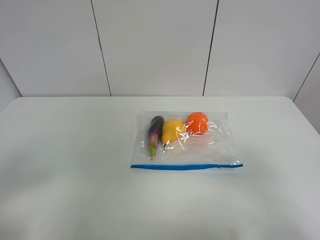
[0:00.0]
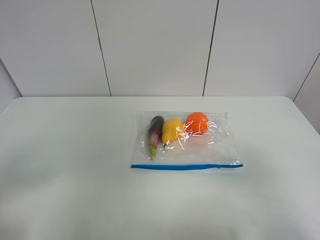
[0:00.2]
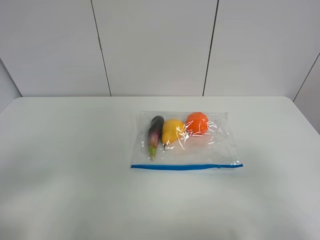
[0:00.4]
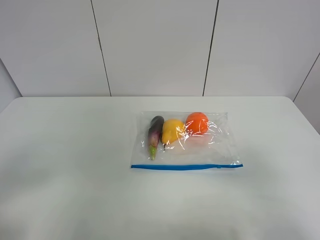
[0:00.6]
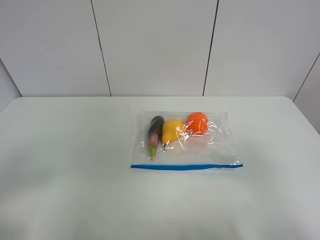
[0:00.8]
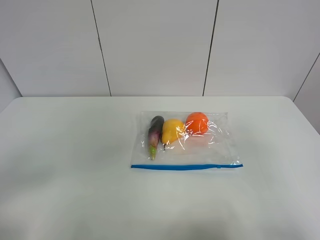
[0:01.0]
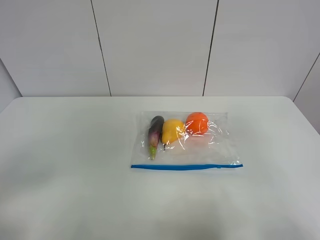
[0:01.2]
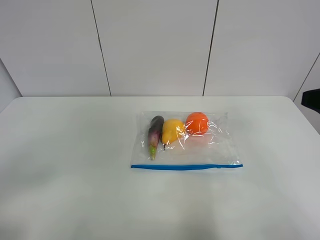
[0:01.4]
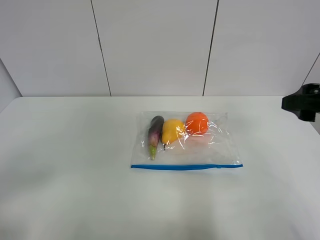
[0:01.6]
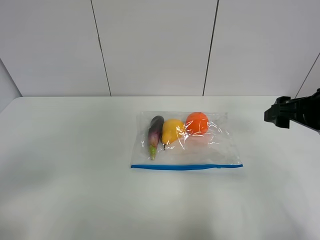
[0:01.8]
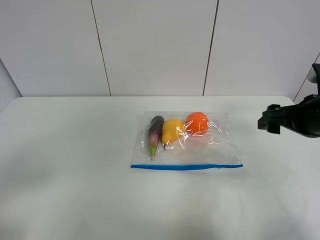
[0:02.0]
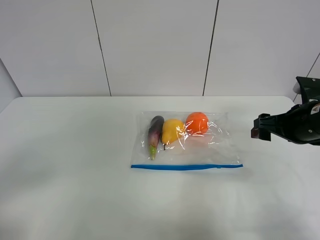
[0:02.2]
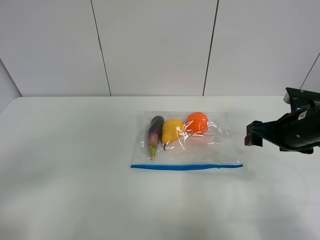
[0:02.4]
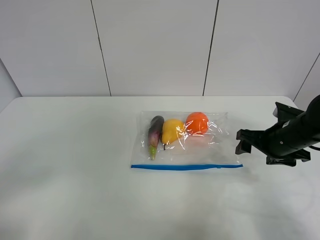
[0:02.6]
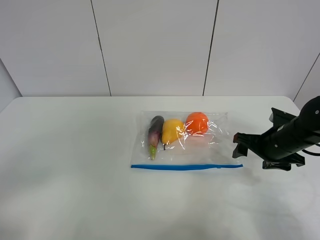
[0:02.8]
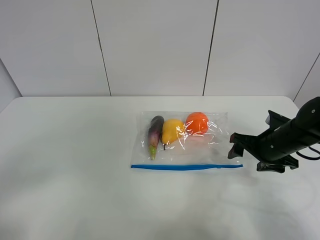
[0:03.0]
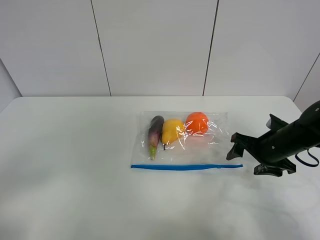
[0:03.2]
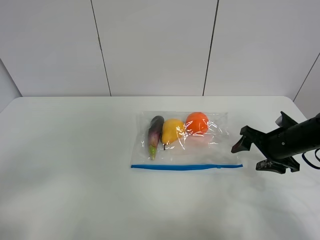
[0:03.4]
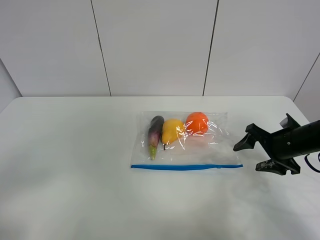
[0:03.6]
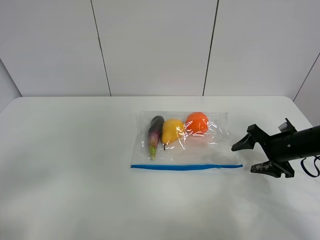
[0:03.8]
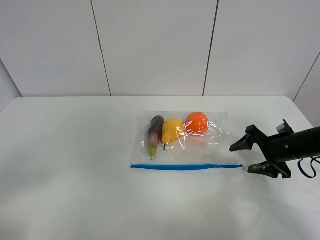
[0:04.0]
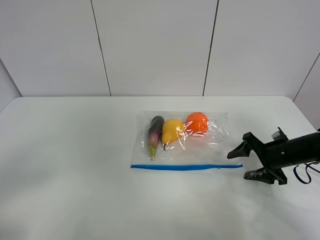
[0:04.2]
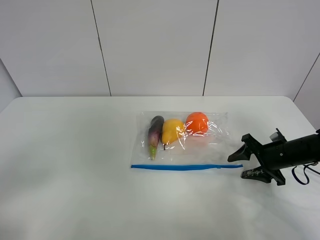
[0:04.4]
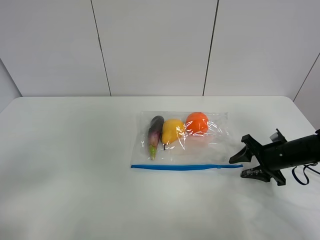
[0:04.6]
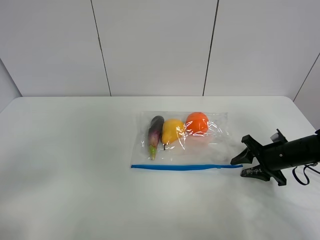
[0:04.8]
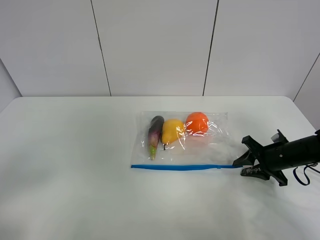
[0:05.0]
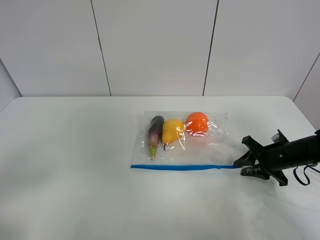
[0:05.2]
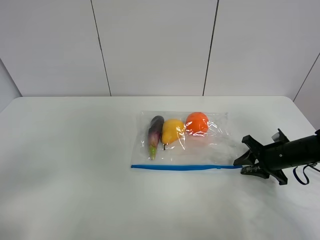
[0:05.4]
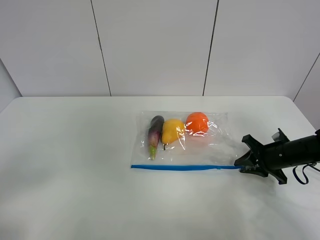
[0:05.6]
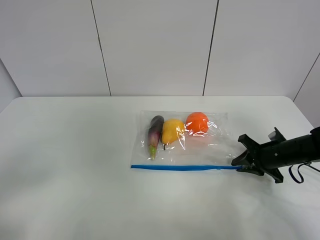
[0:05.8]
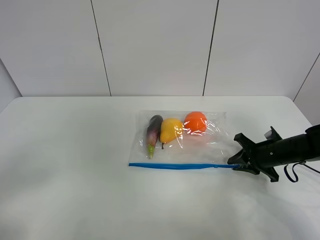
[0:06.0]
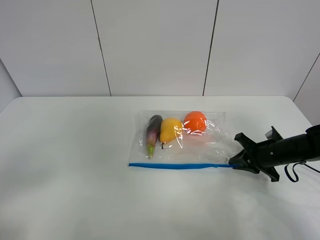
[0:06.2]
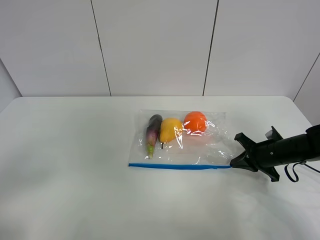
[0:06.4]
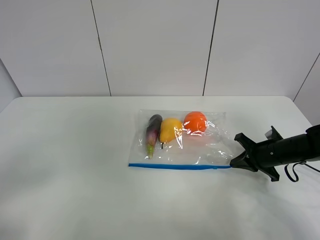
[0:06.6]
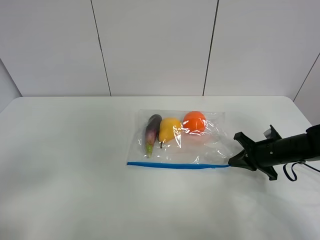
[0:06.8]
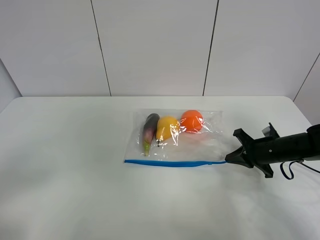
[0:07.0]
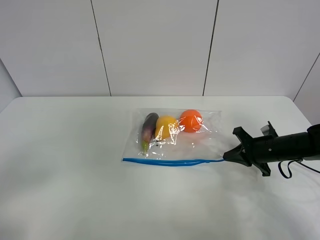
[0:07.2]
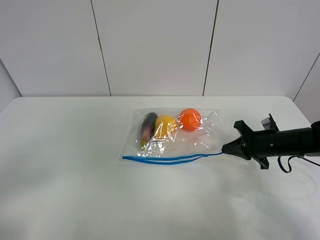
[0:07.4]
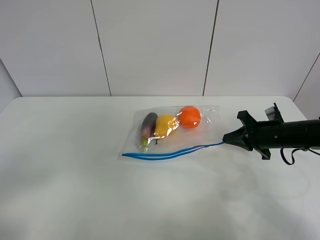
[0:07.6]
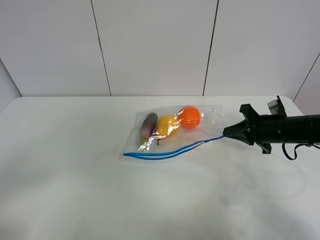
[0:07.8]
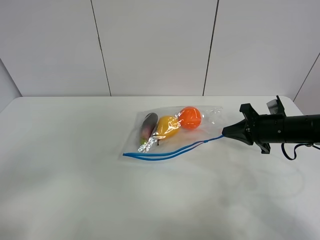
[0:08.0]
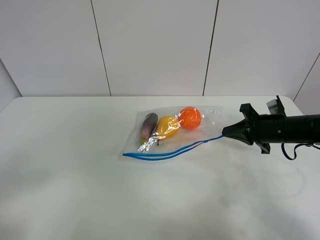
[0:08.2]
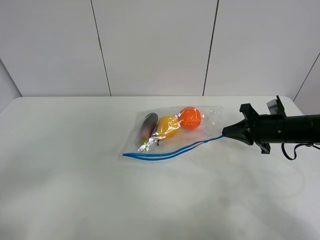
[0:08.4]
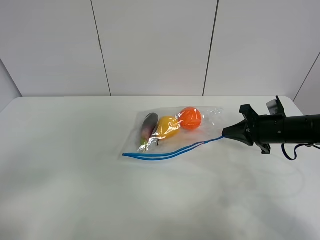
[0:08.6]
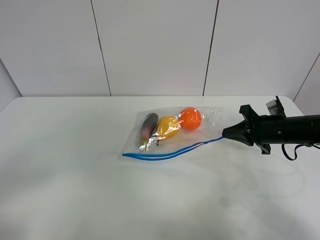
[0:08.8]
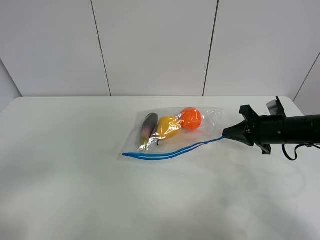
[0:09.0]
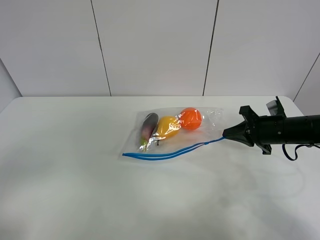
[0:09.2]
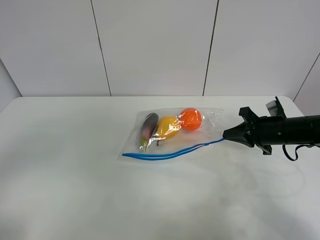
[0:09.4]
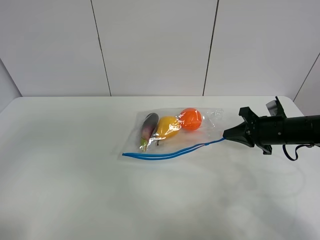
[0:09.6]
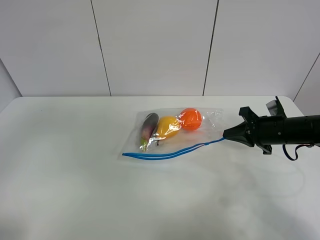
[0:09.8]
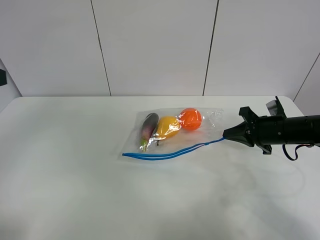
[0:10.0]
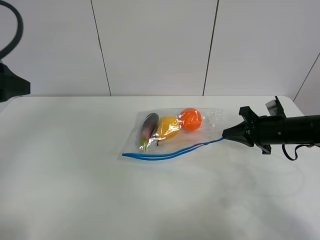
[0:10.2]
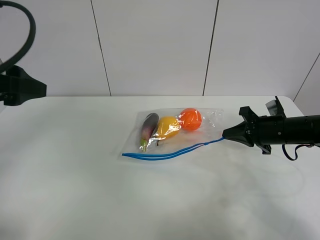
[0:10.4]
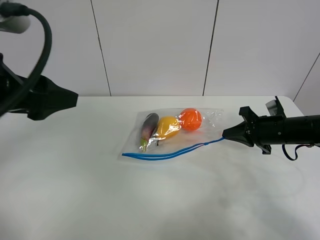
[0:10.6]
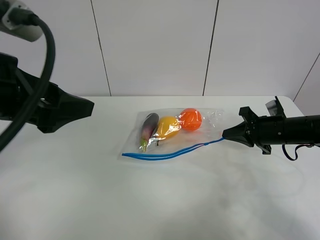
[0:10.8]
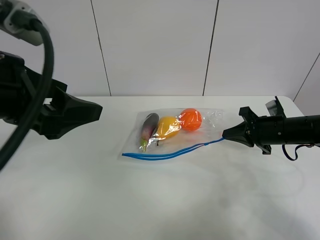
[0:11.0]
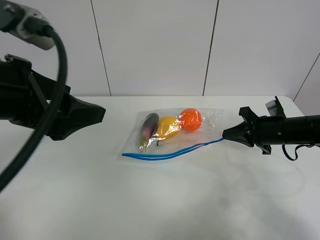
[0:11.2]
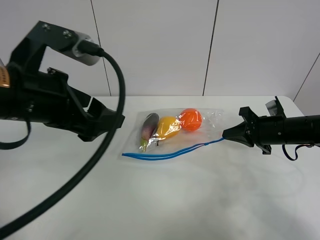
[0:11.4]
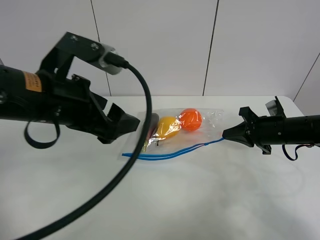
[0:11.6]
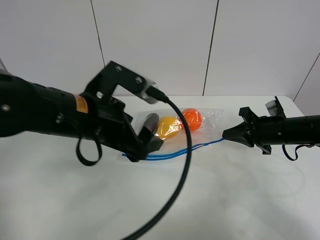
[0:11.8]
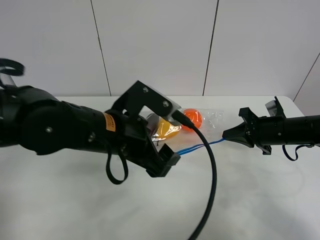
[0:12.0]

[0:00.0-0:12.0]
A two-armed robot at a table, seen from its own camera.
Step, 0:00.0 to 0:06.4: Grasp the fruit bag with right gripper.
Step, 0:06.6 to 0:08.2: Lift the fruit bag with your right gripper.
0:00.0 to 0:01.6: The right gripper shifts approximately 20 cm forward.
0:01.6 to 0:03.0: The right gripper goes approximately 20 cm downward and forward.
0:03.0 to 0:04.4: The right gripper shifts some 5 cm downward.
0:04.4 to 0:06.0: The right gripper closes up.
0:06.0 to 0:07.6: The right gripper heads upward, covering approximately 5 cm.
0:07.6 to 0:09.0: The grippers stay close to where they were, moving slightly.
0:09.0 to 0:10.4: The left gripper goes roughly 20 cm forward.
0:10.4 to 0:12.0: The left gripper goes approximately 25 cm to the right and downward.

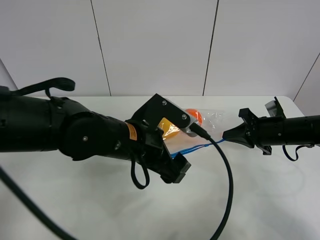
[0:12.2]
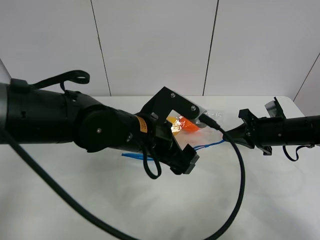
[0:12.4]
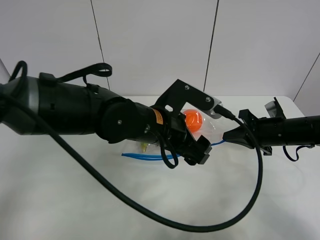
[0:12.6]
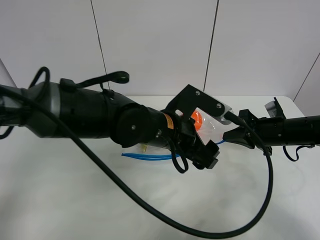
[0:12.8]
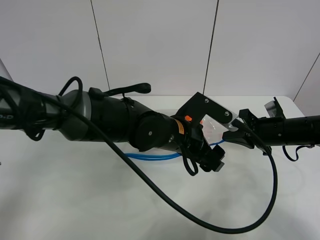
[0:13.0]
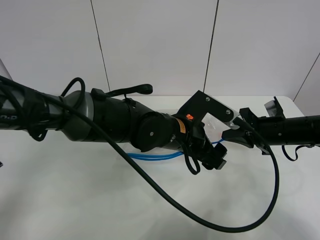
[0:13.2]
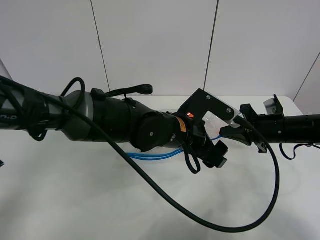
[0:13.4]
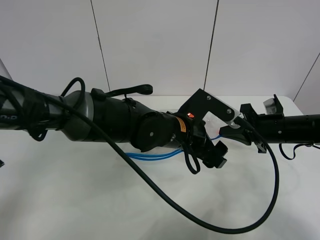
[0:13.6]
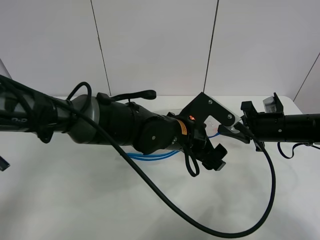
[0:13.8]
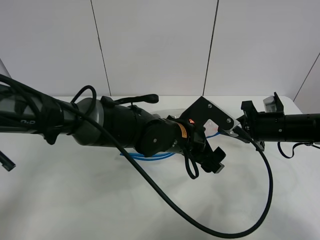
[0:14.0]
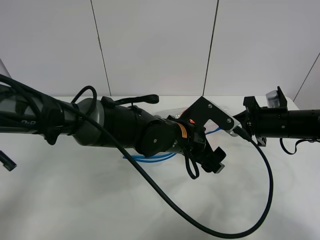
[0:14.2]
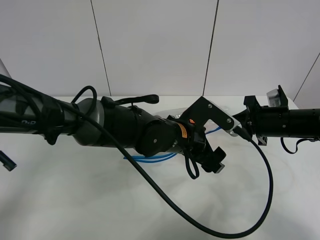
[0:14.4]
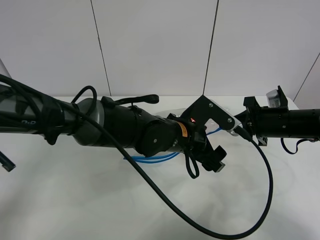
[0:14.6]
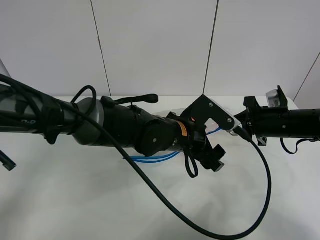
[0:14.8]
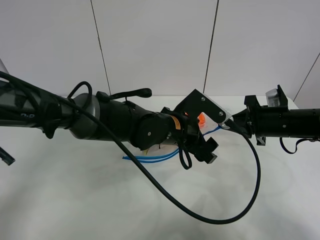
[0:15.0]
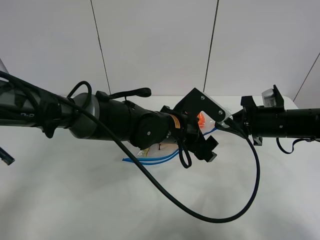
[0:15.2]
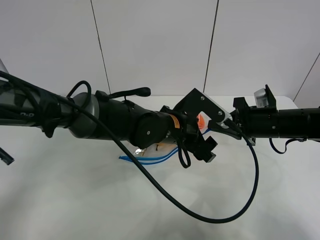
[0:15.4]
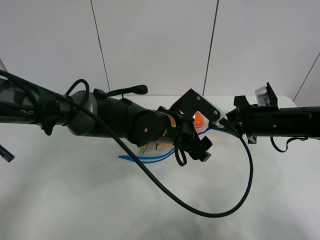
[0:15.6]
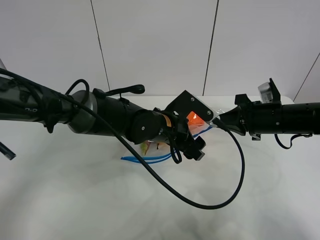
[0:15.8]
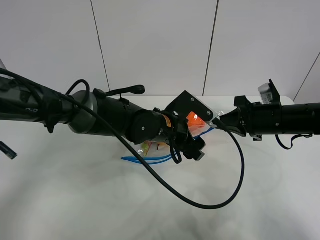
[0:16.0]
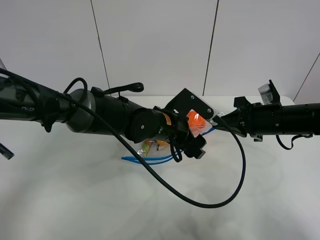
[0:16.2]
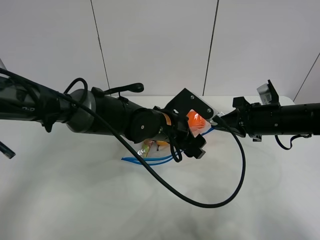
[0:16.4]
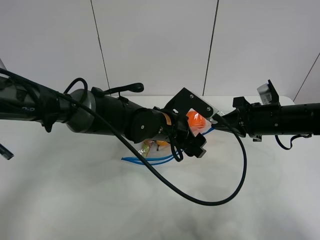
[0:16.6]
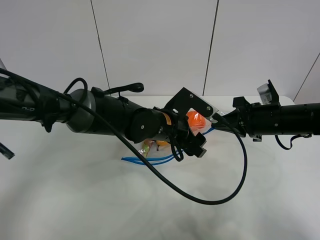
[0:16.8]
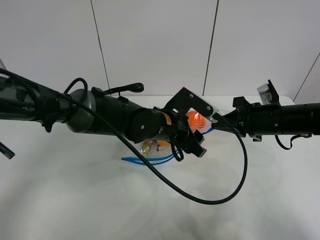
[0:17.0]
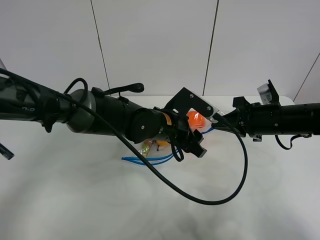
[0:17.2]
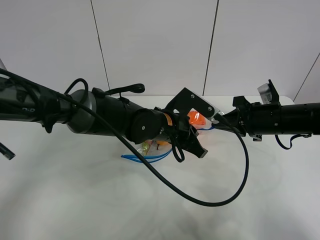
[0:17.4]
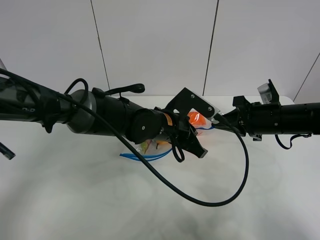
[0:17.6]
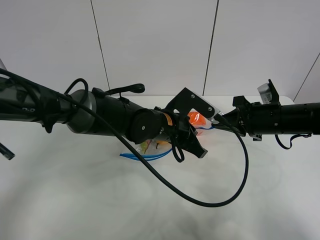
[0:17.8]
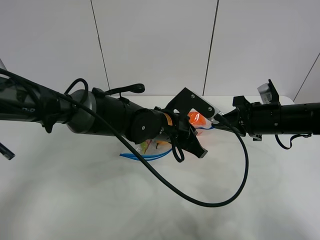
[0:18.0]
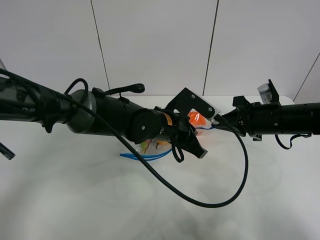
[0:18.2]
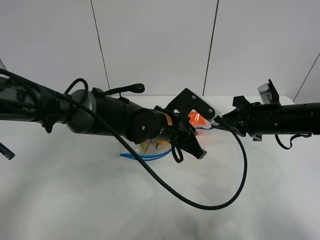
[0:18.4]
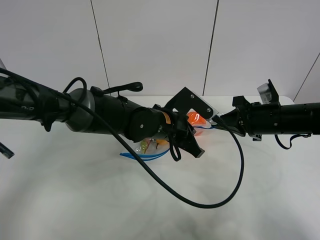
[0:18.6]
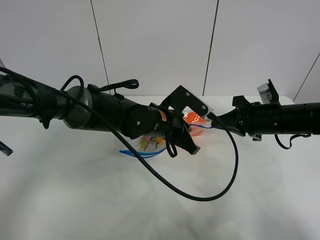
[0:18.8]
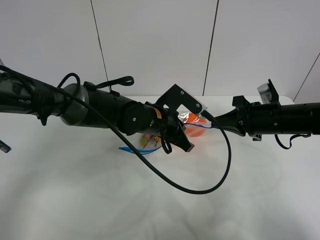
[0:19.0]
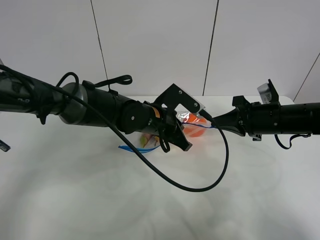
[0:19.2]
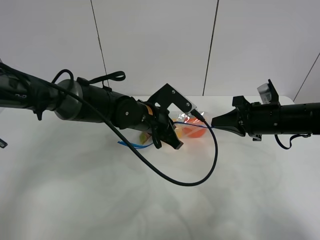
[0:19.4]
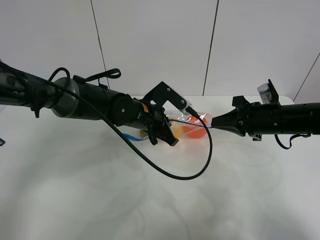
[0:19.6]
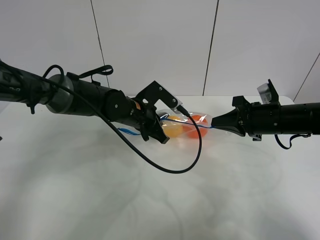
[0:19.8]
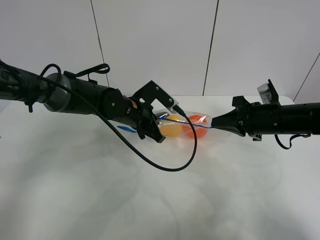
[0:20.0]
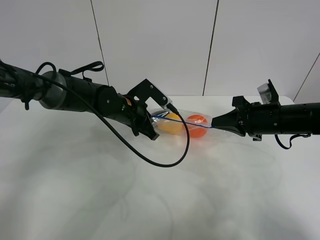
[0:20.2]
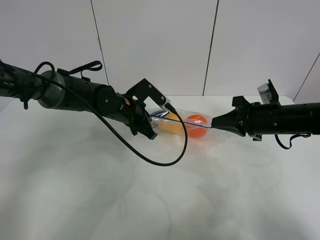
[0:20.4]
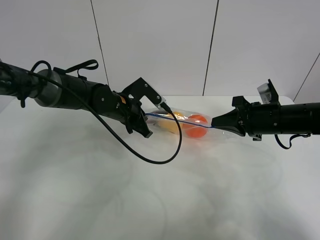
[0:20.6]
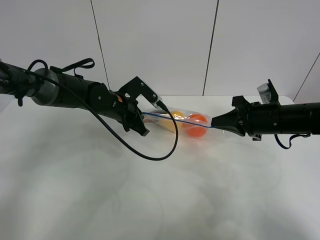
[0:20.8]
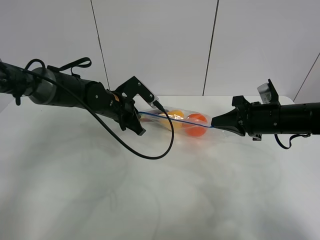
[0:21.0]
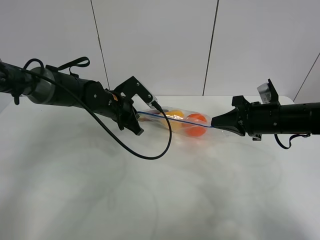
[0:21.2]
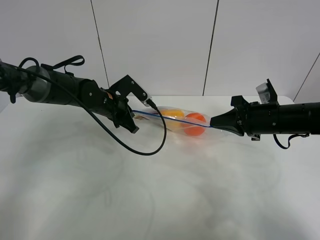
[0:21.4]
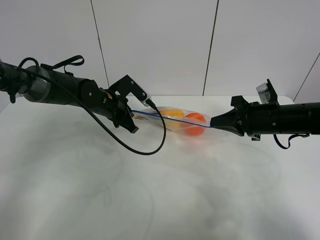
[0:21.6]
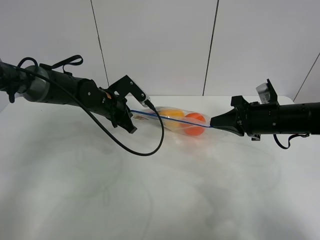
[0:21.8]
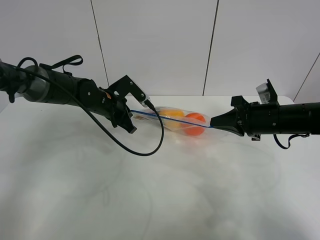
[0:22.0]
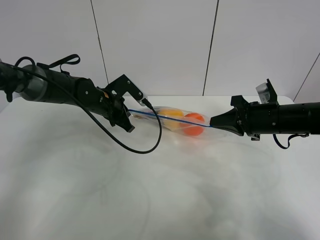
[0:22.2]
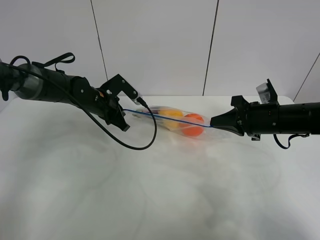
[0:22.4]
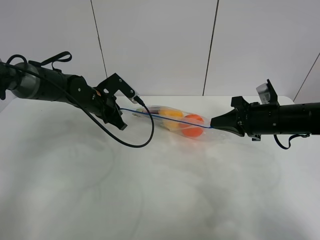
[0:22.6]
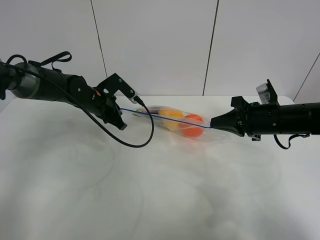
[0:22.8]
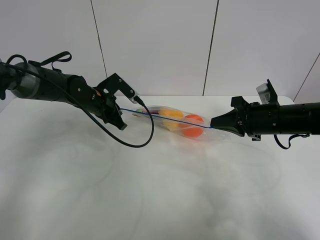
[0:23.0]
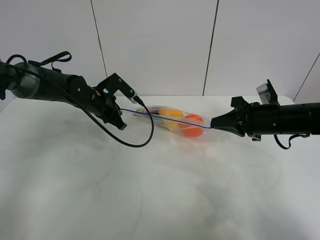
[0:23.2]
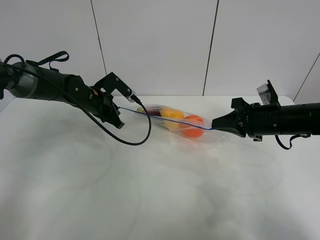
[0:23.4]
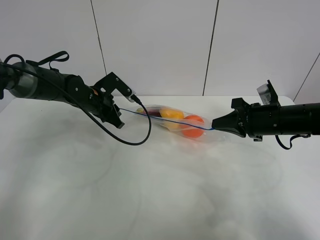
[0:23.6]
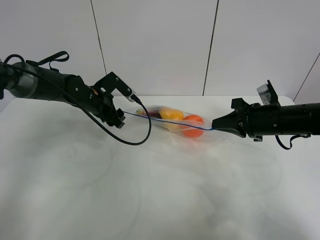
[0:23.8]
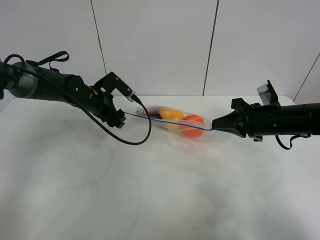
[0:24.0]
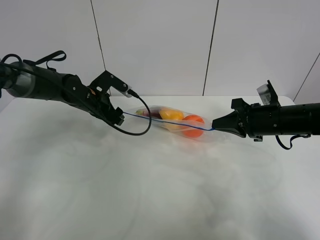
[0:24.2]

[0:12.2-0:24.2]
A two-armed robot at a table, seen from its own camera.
Step, 0:12.2 to 0:24.2: Pull the fruit bag with left gripper.
0:12.2 to 0:13.8: The left gripper heads to the right, covering some 5 cm.
0:13.8 to 0:16.6: The grippers make only small movements.
0:16.6 to 0:18.2: The left gripper closes up.
0:18.2 to 0:19.8: The left gripper moves to the left and forward, some 10 cm.
0:19.8 to 0:21.2: The left gripper moves to the left, approximately 5 cm.
0:21.2 to 0:22.6: The grippers stay close to where they were, moving slightly.
0:22.6 to 0:24.2: The left gripper opens up.
